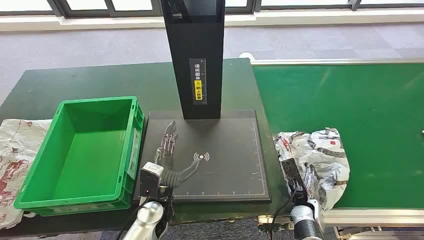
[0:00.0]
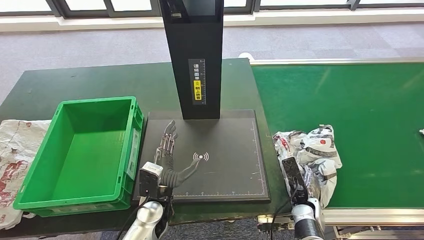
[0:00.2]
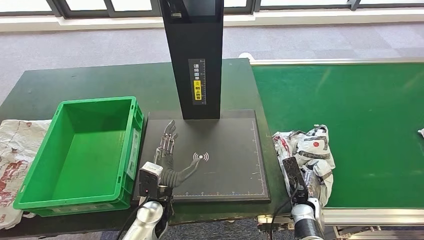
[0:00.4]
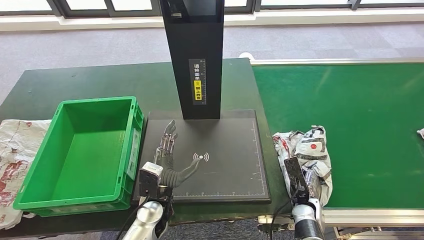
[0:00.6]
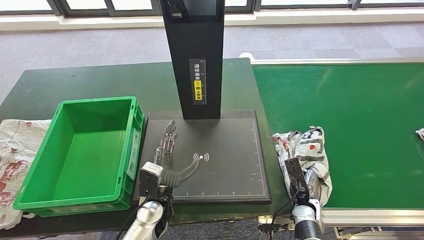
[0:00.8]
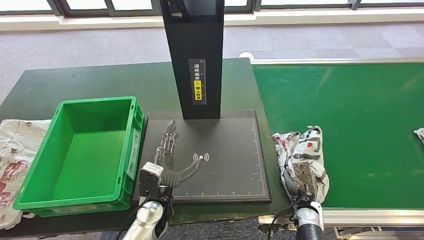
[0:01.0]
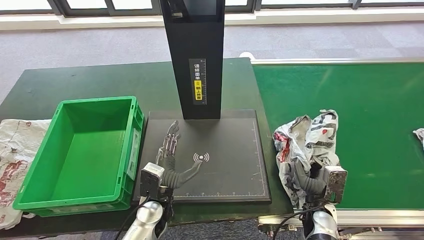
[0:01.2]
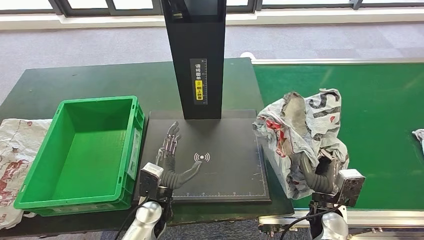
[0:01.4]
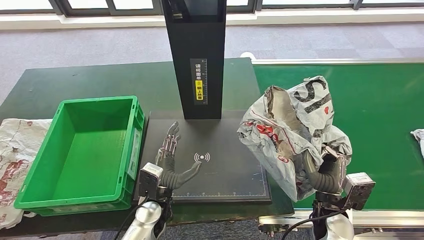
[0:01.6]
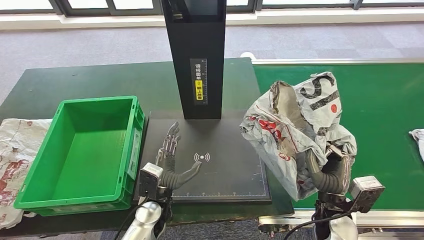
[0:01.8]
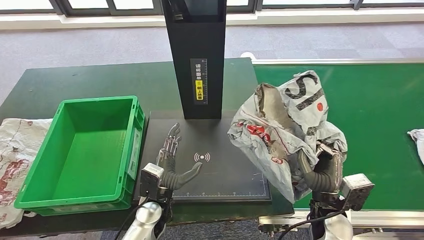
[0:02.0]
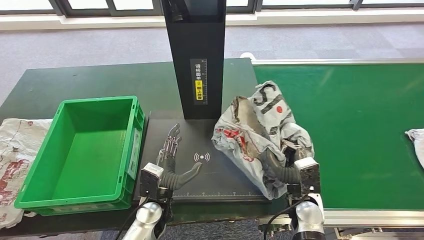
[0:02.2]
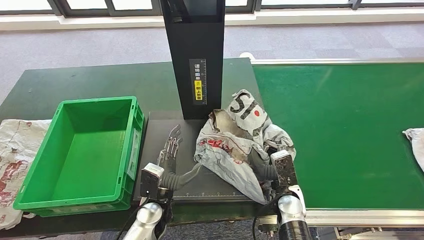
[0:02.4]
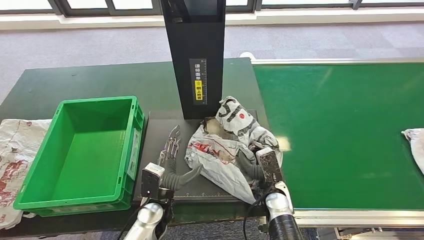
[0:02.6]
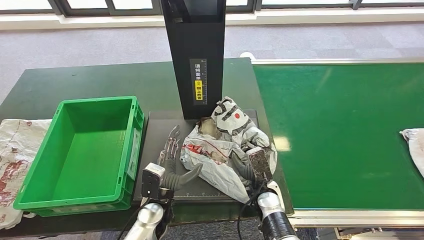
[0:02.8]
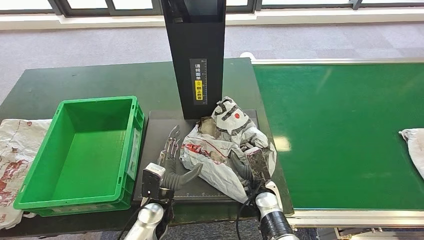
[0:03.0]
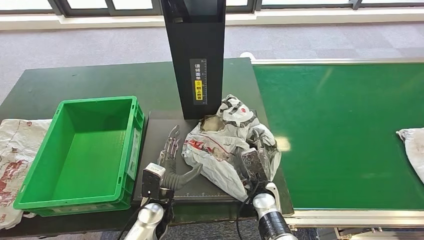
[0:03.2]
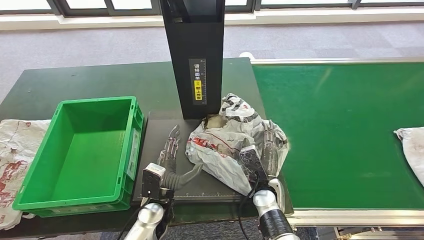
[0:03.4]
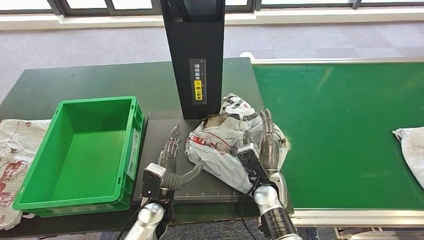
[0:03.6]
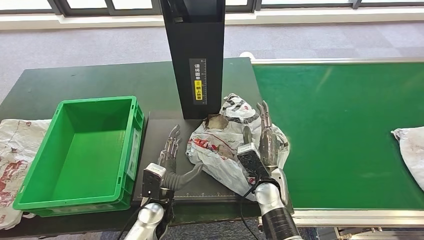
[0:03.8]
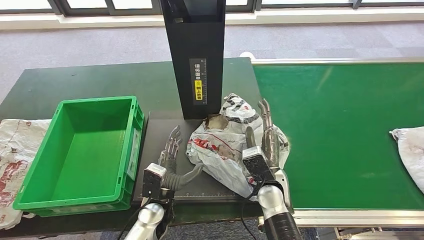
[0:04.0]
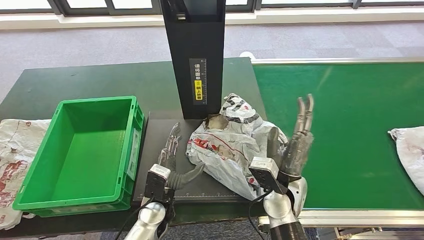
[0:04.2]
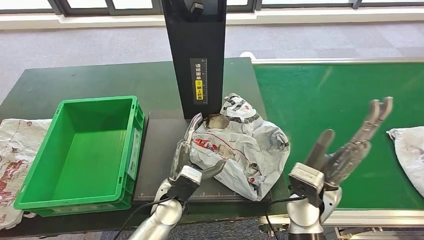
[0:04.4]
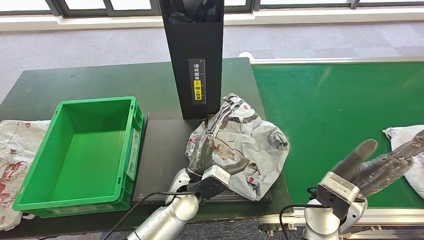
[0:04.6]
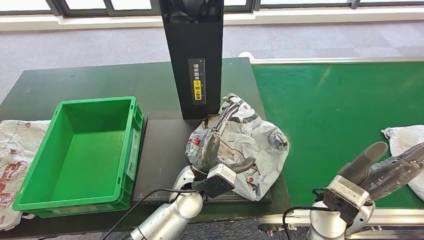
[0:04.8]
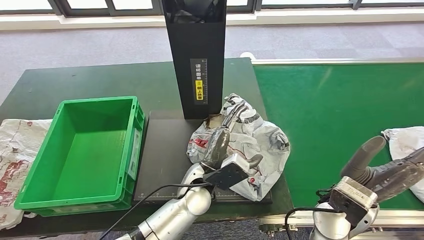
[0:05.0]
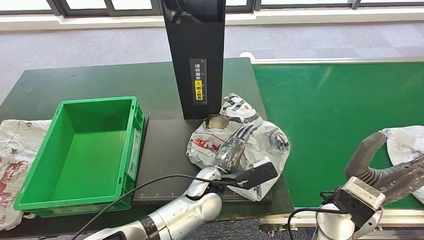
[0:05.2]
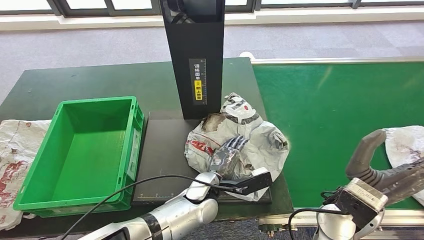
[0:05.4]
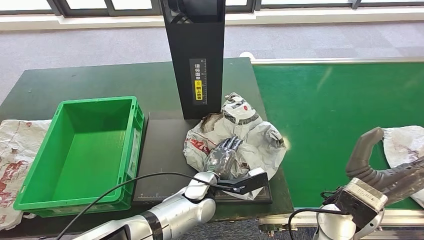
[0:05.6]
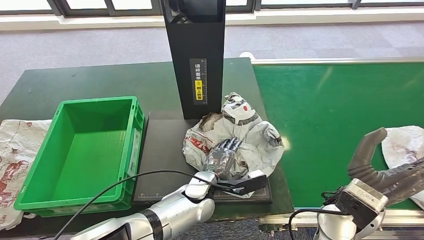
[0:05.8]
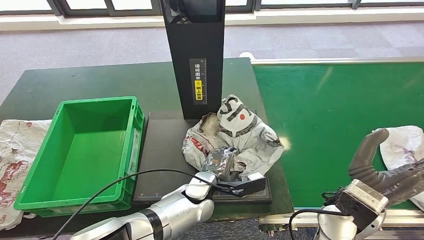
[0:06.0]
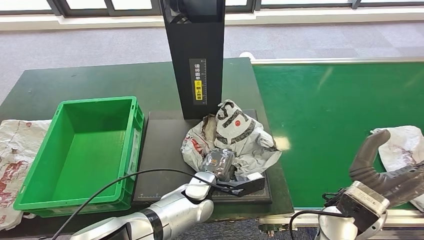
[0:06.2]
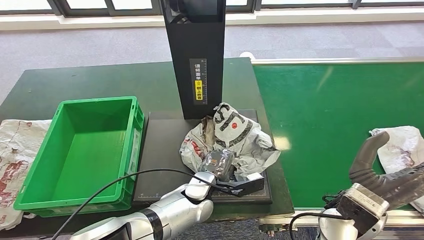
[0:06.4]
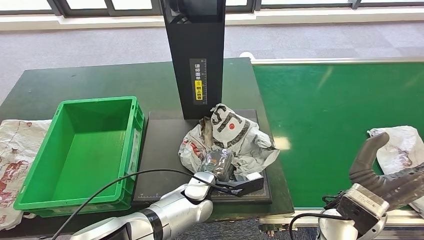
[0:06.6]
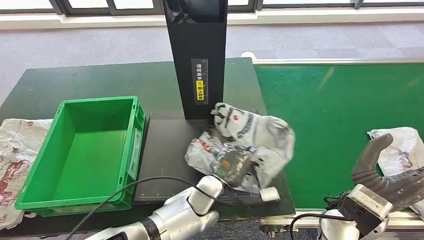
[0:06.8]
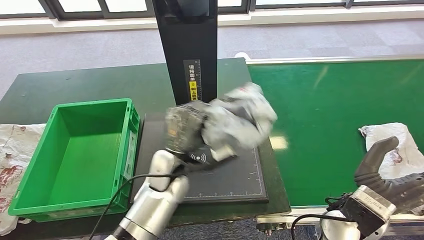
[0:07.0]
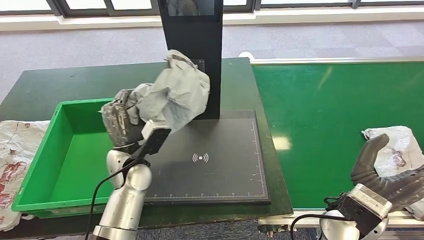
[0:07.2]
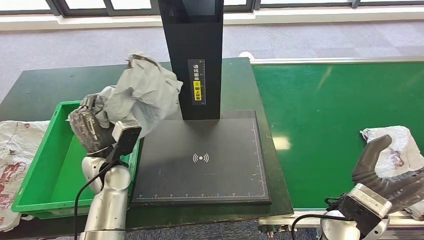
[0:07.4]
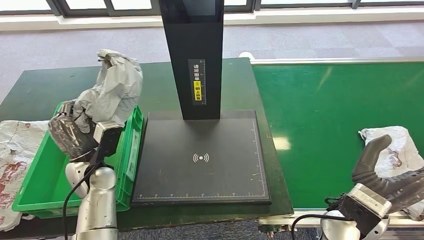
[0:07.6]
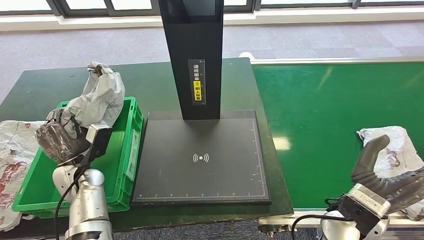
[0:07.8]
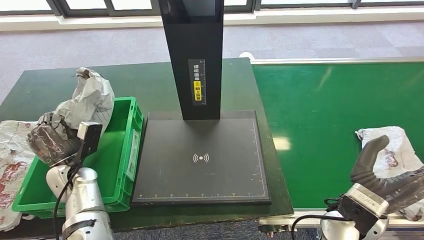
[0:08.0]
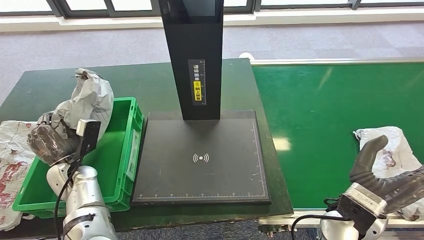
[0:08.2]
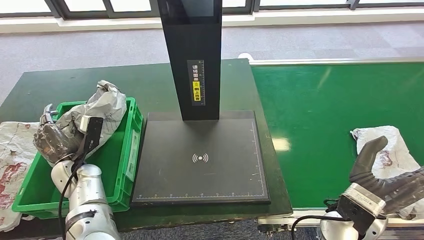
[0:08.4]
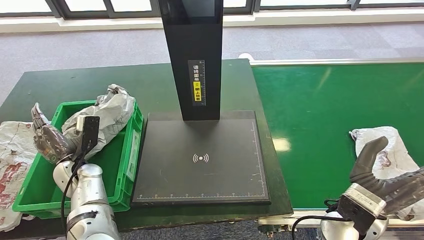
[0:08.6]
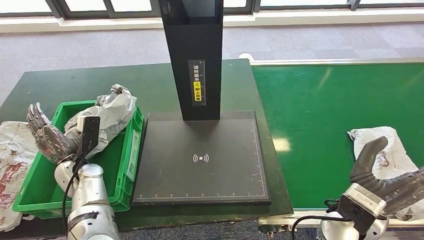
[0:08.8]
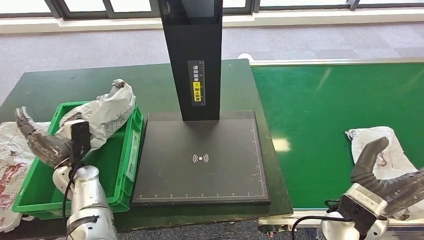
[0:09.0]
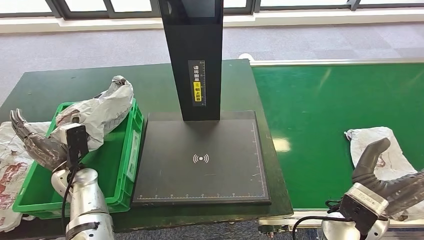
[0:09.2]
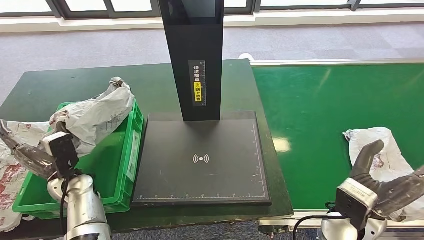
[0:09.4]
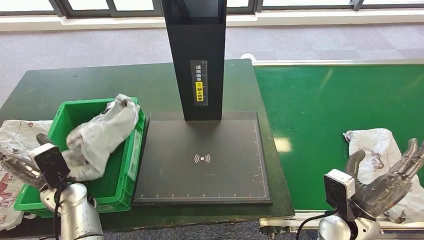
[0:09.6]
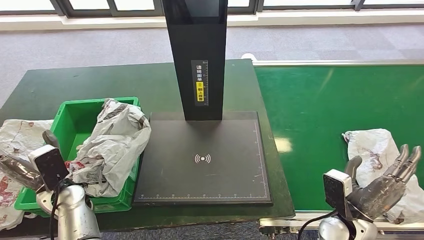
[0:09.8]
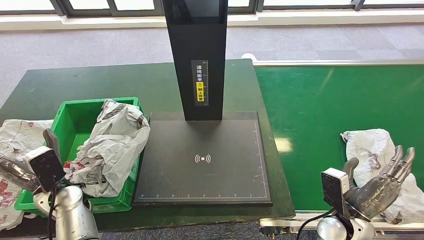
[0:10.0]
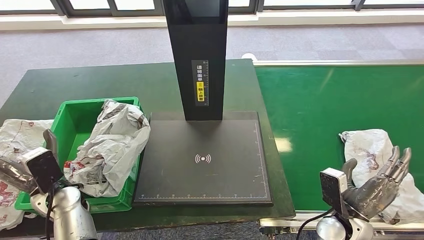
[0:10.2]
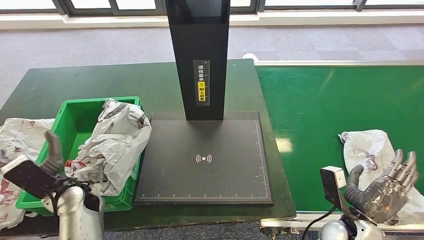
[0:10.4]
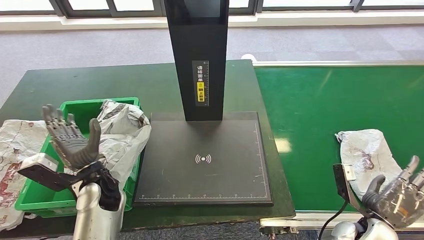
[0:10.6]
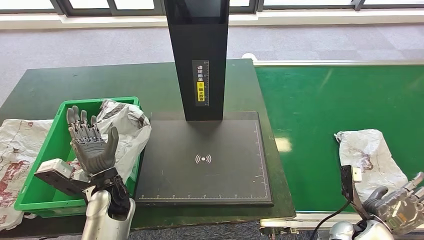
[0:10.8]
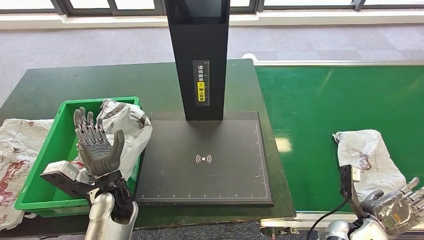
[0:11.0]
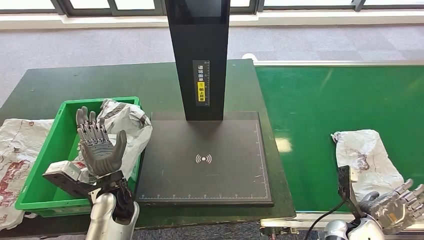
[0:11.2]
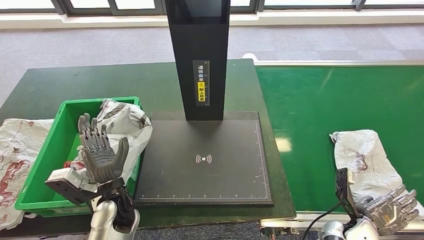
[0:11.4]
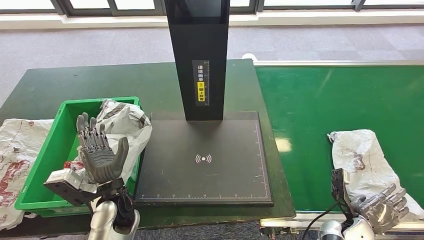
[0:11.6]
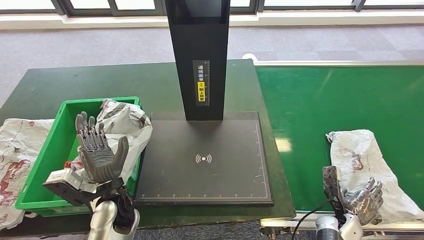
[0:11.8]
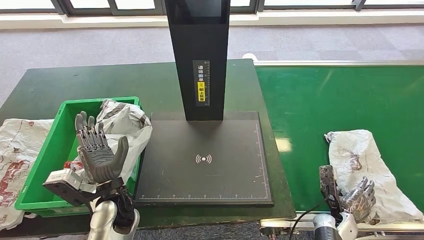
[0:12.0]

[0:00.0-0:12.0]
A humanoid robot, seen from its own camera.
Step, 0:00.0 to 0:01.8: Take the parcel off the conveyor belt.
Step, 0:02.0 to 0:04.8: Place the parcel onto the inbound machine.
Step, 0:05.0 to 0:07.2: Pick up the parcel from the inbound machine.
Step, 0:07.4 to 0:10.2: Put the parcel inside the courier box.
0:01.6 to 0:03.0: The right hand moves to the left and downward, some 15 cm.
0:03.0 to 0:04.4: The right hand is displaced upward by roughly 15 cm; the left hand changes place by some 5 cm.
0:10.4 to 0:12.0: The right hand moves downward, approximately 10 cm; the left hand heads to the right, covering some 10 cm.

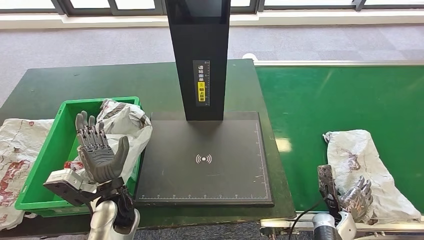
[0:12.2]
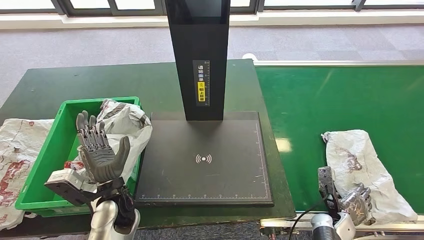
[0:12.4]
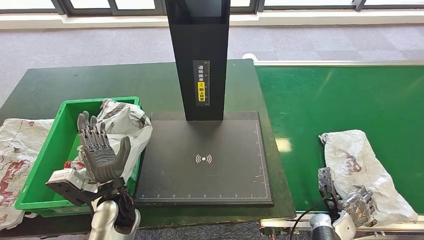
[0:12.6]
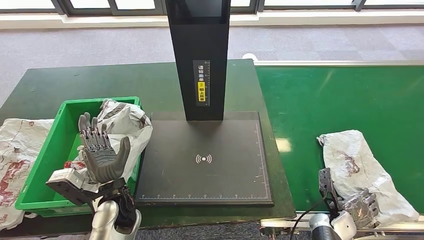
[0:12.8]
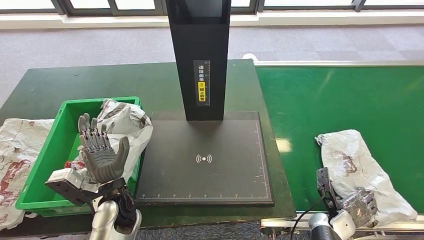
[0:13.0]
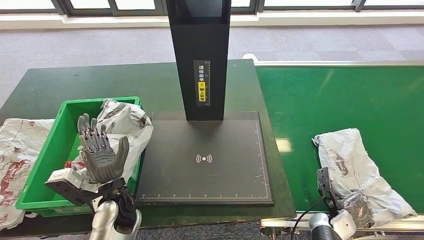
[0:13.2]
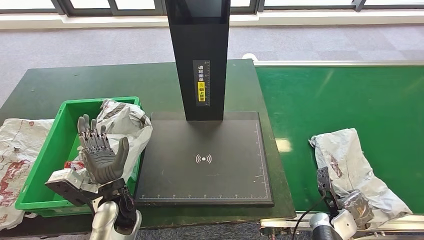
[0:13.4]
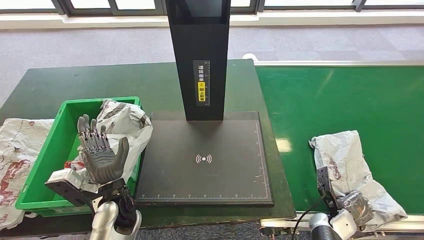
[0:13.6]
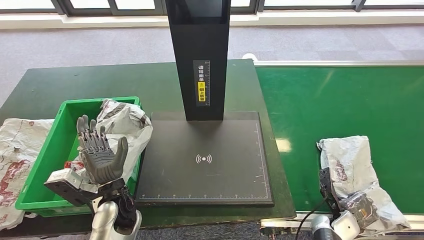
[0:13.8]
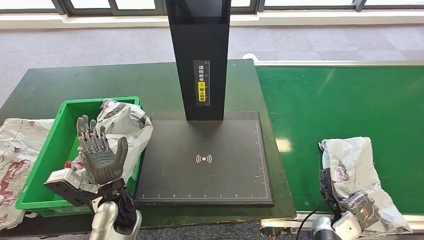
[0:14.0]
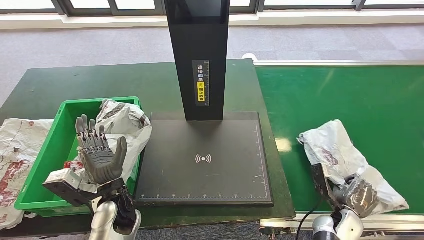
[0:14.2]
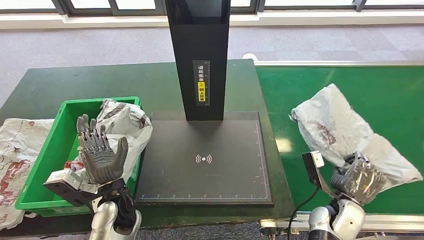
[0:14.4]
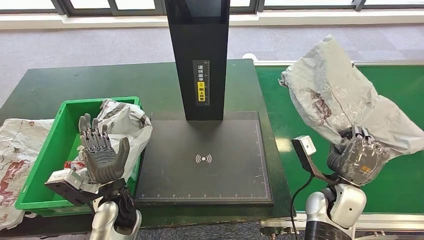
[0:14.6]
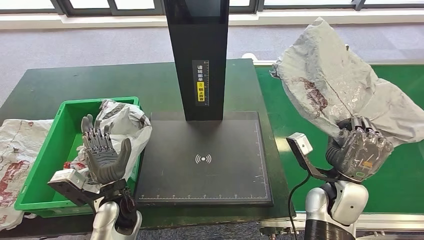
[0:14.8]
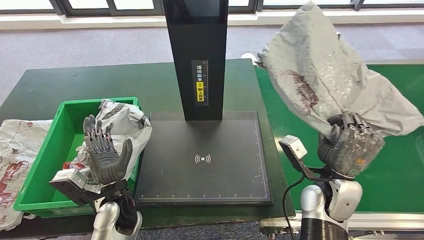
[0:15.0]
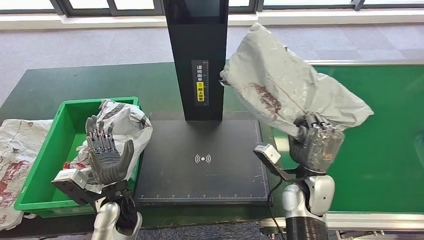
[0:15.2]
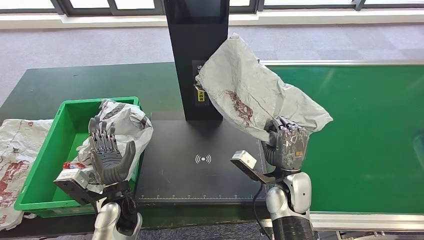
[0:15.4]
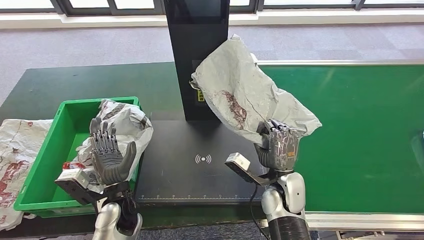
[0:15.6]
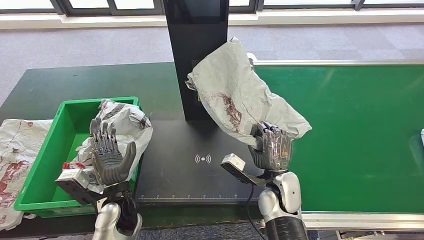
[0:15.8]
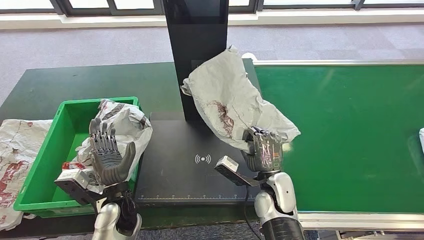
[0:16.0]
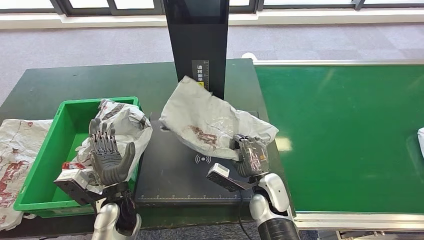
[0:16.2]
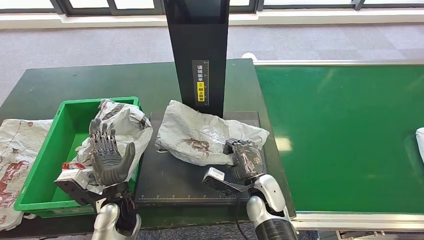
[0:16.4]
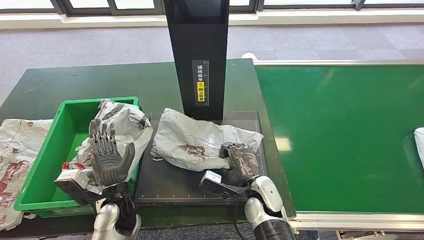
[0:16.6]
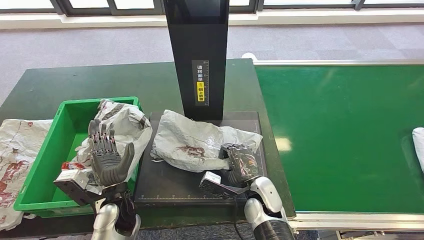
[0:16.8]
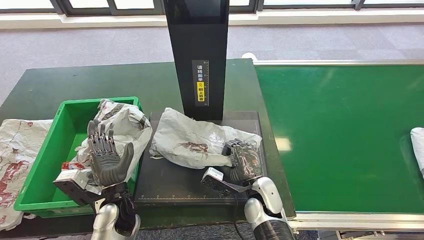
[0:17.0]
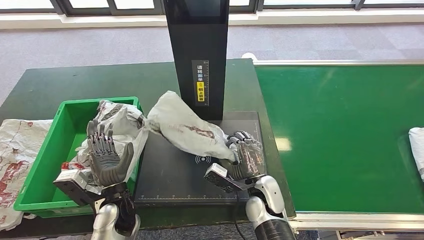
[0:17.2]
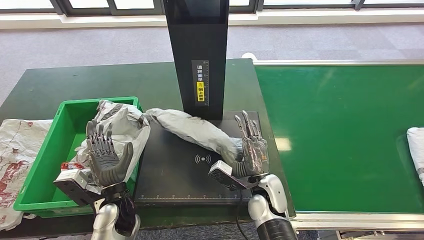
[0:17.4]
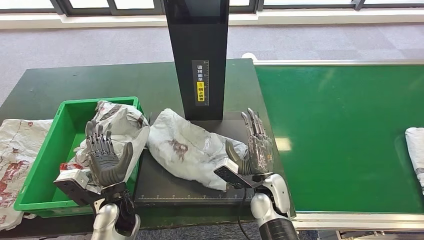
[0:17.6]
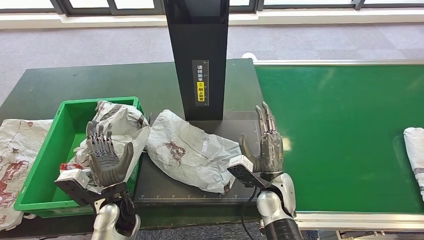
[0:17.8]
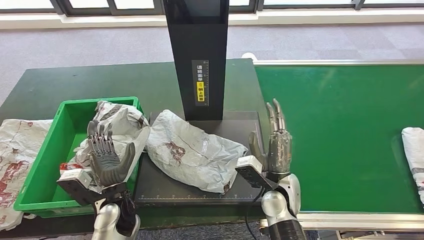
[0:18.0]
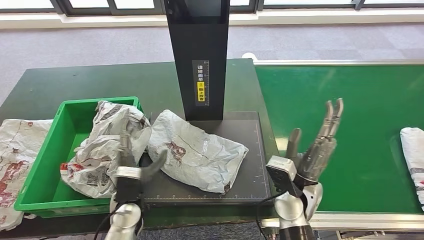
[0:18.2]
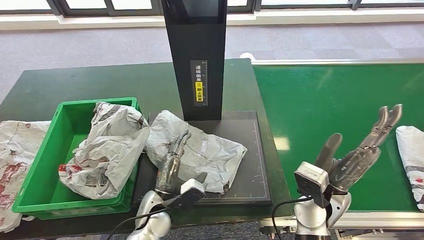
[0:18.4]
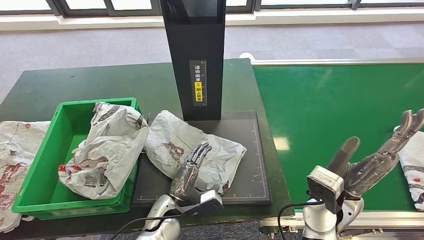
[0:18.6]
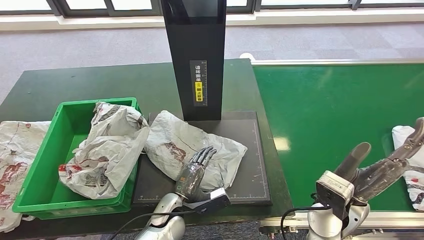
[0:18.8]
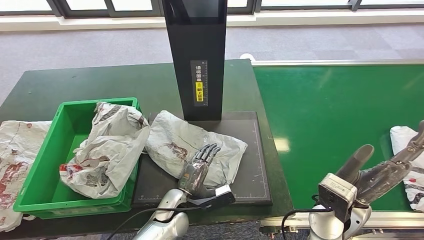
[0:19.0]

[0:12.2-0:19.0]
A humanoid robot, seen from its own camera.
Step, 0:12.2 to 0:14.8: Pick up the parcel from the conveyor belt.
Step, 0:15.2 to 0:18.0: Place the parcel onto the inbound machine.
0:16.2 to 0:17.6: The hands make only small movements.
